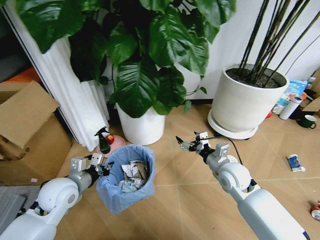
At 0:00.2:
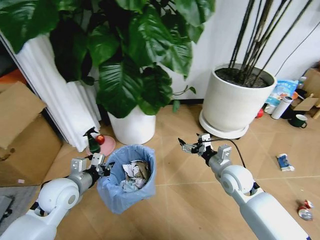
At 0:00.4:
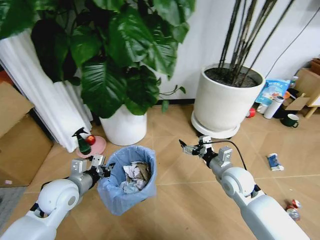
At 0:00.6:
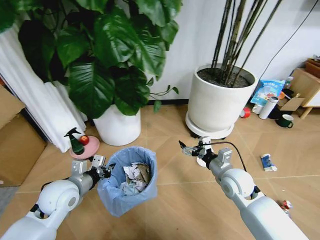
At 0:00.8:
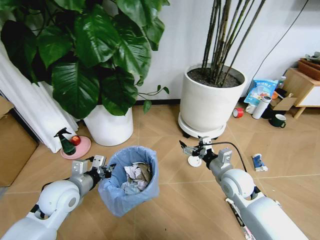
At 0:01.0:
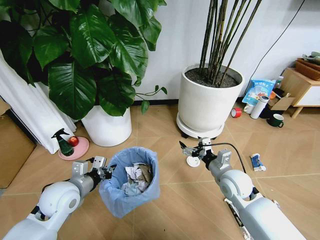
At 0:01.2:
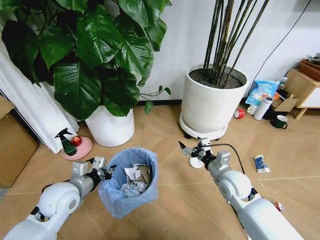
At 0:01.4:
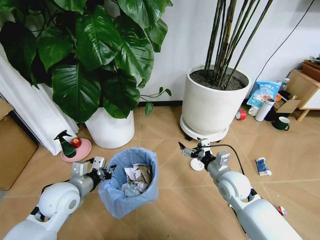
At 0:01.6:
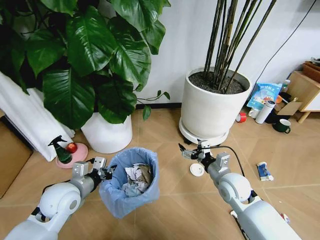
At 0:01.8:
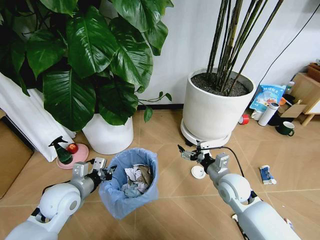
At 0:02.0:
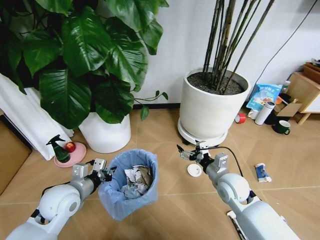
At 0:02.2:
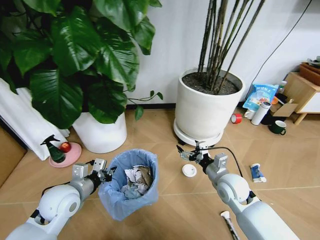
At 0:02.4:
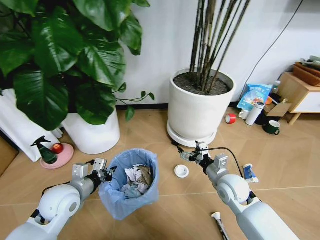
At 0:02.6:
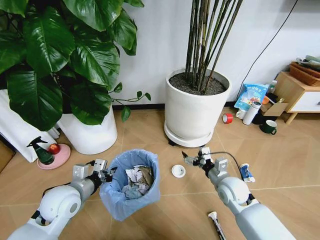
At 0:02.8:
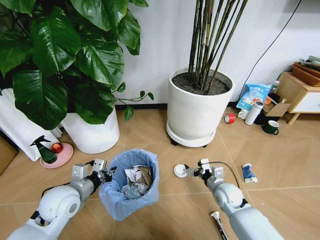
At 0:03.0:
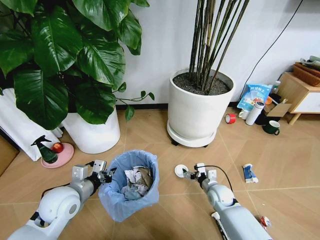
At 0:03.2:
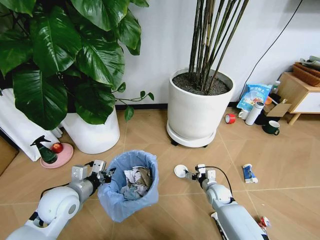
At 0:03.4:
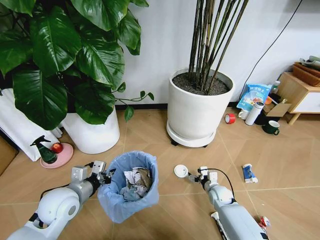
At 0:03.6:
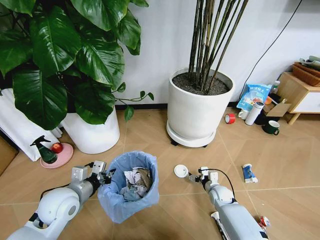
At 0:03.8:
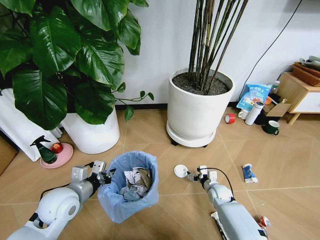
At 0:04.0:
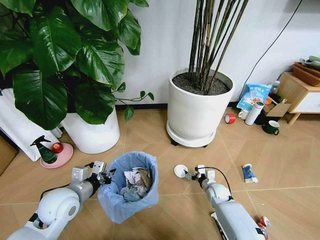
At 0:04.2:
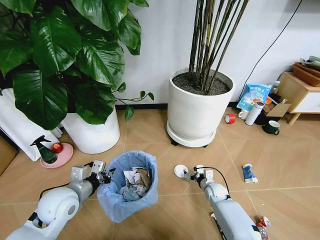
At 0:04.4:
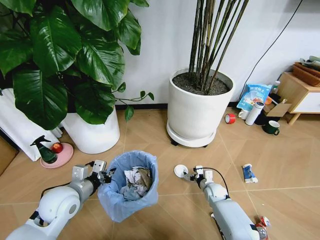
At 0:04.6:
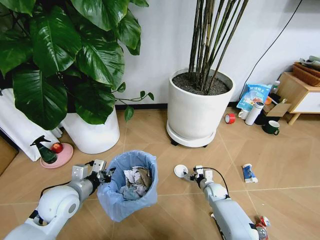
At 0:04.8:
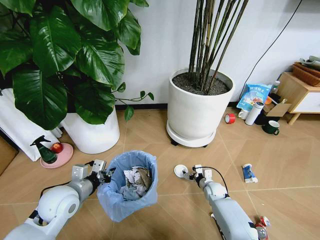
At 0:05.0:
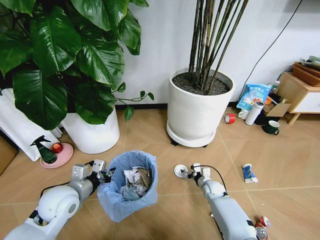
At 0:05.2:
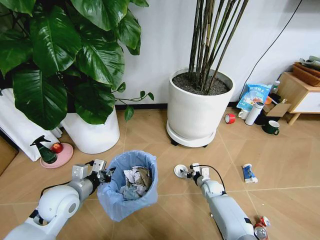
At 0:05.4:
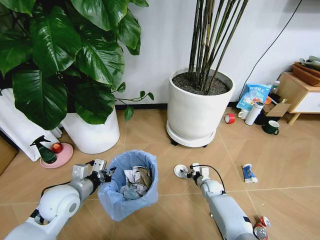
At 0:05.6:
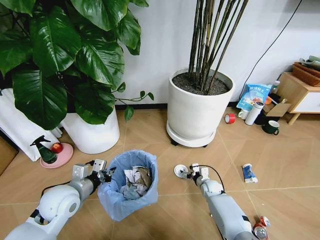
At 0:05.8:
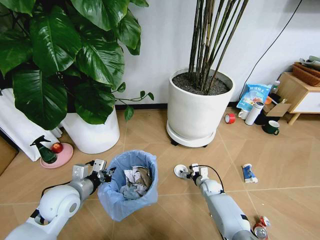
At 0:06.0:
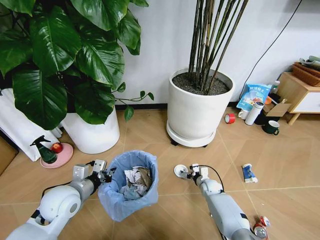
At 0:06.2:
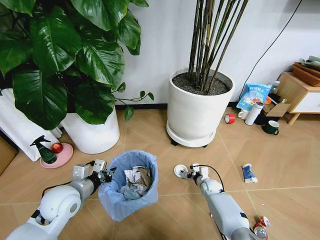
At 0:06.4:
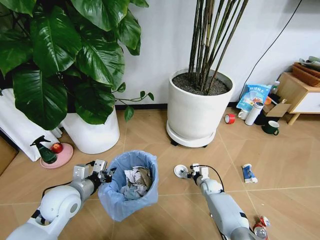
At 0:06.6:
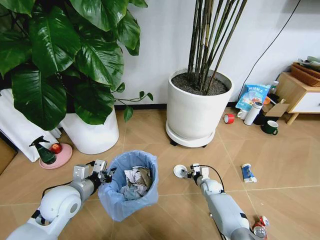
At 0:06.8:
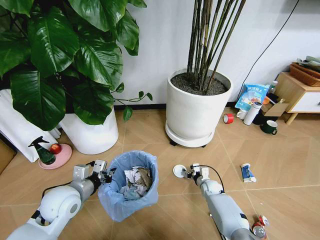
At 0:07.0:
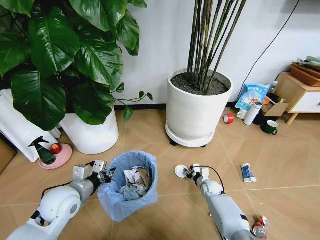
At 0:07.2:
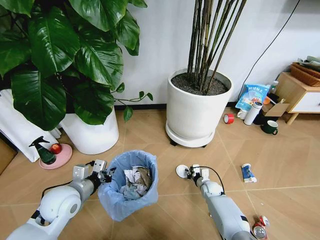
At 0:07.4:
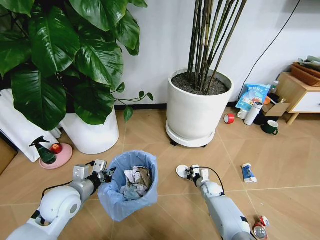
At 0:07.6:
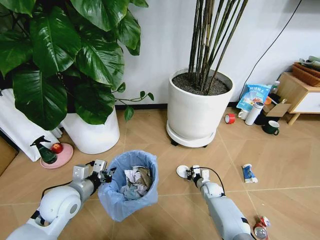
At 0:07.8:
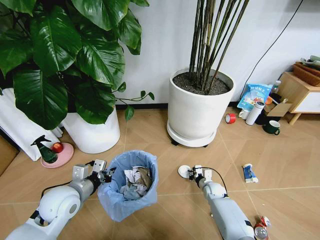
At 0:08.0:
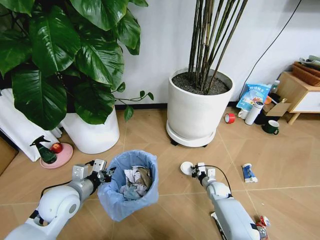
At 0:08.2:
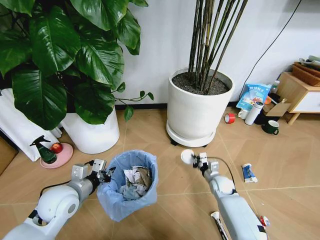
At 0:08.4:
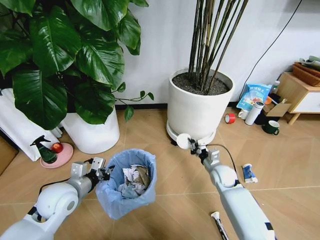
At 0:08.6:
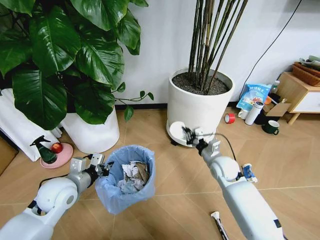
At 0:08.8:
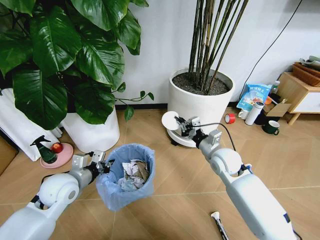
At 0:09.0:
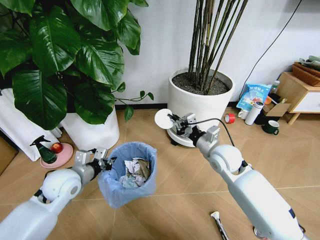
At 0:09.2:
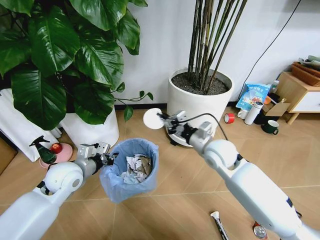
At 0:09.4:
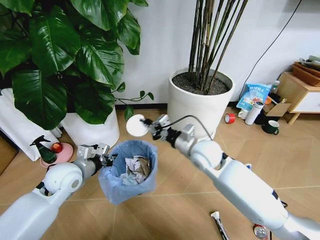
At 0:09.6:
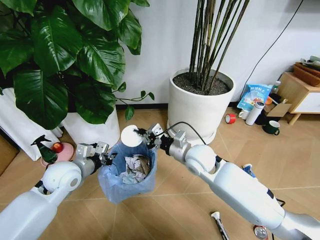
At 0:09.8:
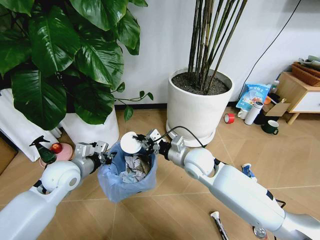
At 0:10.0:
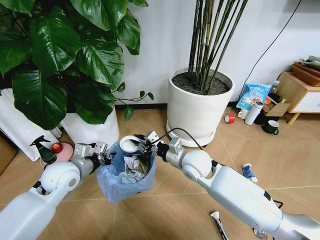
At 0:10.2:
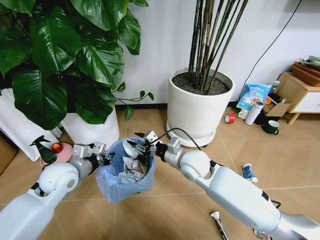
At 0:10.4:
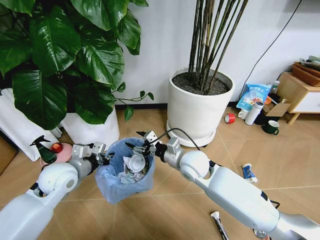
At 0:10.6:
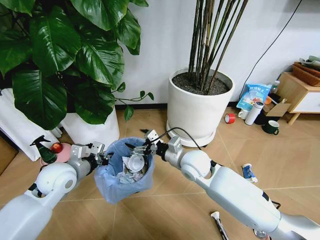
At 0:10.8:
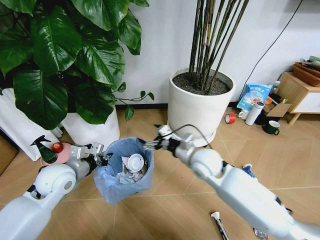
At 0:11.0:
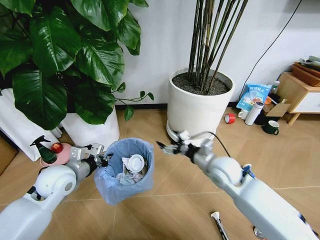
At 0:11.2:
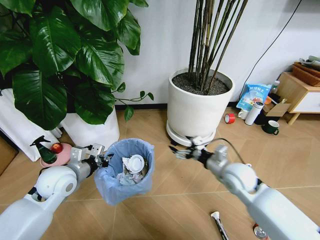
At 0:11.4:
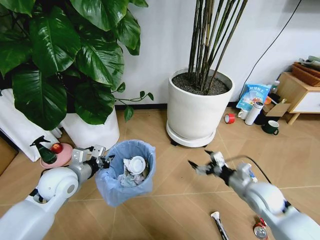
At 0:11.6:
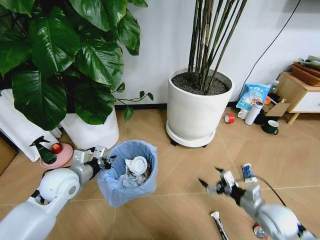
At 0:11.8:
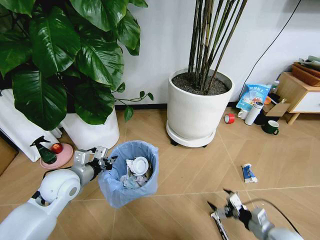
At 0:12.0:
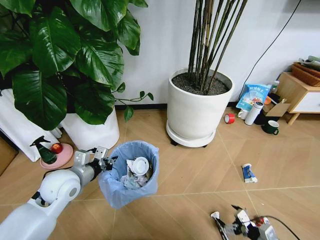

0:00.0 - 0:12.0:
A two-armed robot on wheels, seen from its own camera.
Task of the whole recording: Pick up the trash bin and place the garbage on the floor into it.
0:01.6 - 0:03.0: The right gripper is displaced downward by roughly 15 cm.
0:03.0 - 0:04.4: The right gripper moves downward, about 5 cm.
0:04.4 - 0:06.0: The grippers stay close to where they were, moving slightly.
0:06.0 - 0:07.6: The right gripper closes up.
0:07.6 - 0:09.0: The left gripper heads forward, covering some 5 cm. Meanwhile the right gripper shifts approximately 30 cm upward.
0:09.0 - 0:10.4: The right gripper is displaced to the left by approximately 10 cm, and opens its fingers.
0:10.4 - 0:12.0: The right gripper moves to the right, backward and downward, some 40 cm.

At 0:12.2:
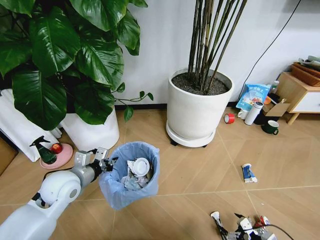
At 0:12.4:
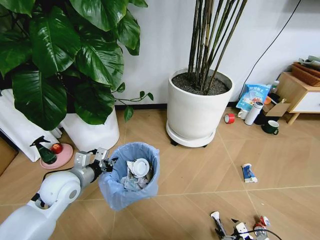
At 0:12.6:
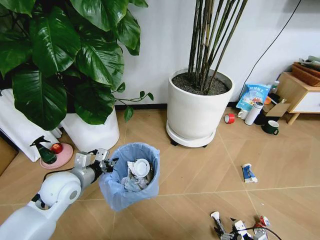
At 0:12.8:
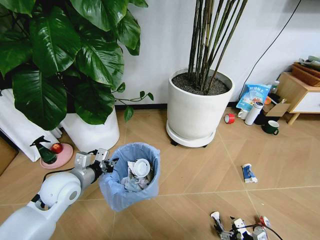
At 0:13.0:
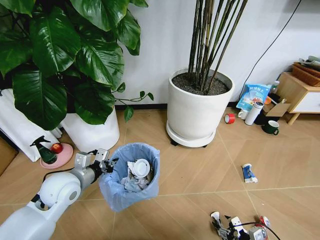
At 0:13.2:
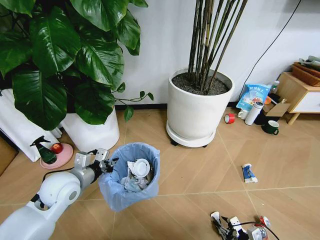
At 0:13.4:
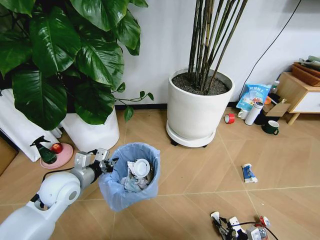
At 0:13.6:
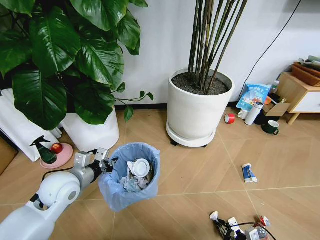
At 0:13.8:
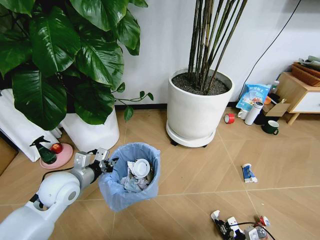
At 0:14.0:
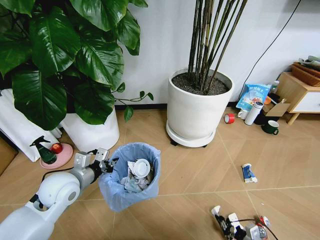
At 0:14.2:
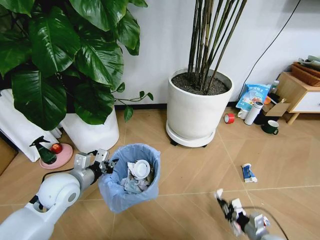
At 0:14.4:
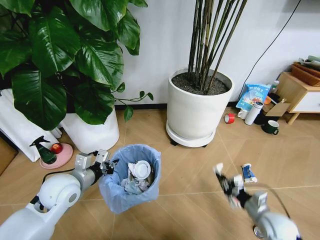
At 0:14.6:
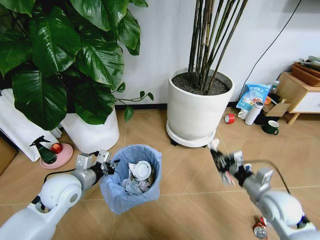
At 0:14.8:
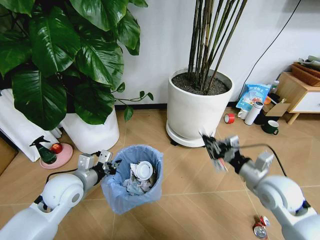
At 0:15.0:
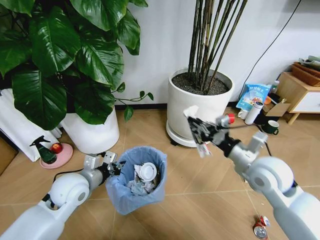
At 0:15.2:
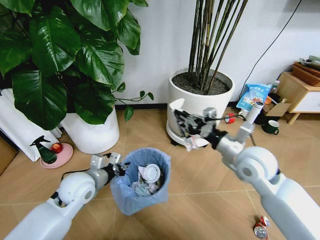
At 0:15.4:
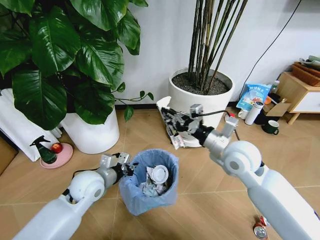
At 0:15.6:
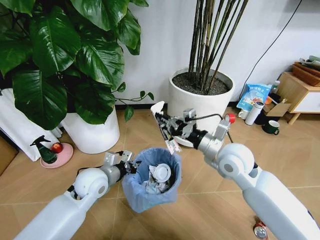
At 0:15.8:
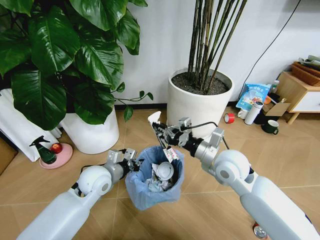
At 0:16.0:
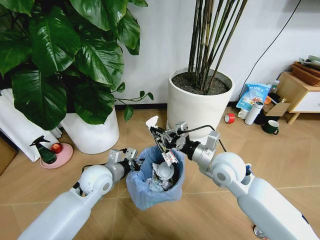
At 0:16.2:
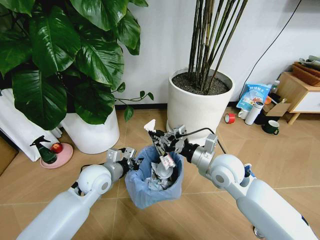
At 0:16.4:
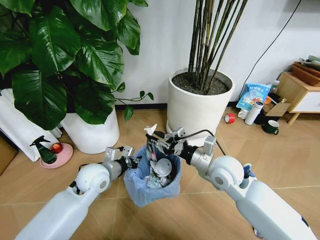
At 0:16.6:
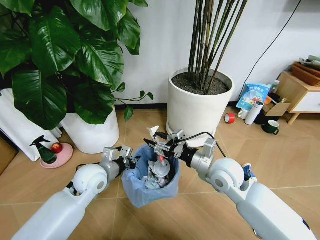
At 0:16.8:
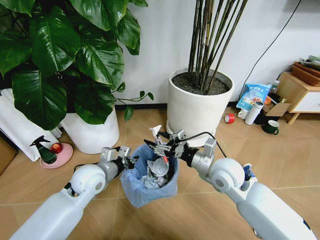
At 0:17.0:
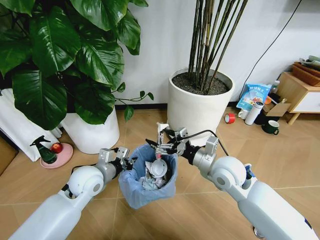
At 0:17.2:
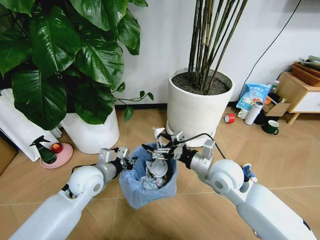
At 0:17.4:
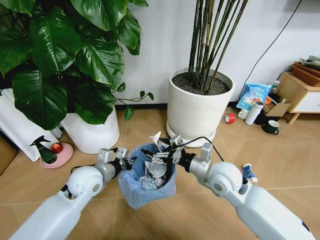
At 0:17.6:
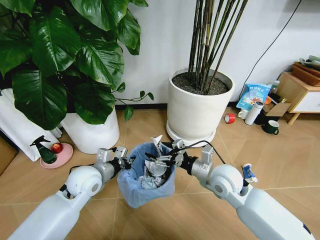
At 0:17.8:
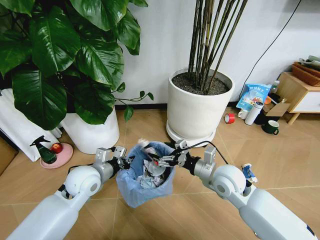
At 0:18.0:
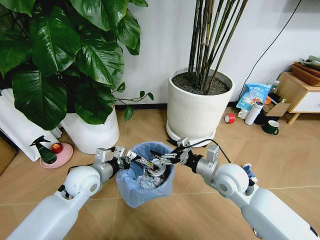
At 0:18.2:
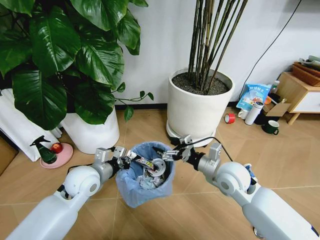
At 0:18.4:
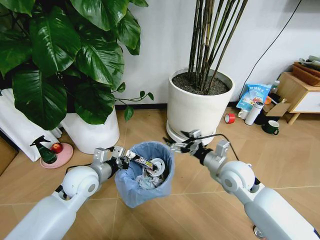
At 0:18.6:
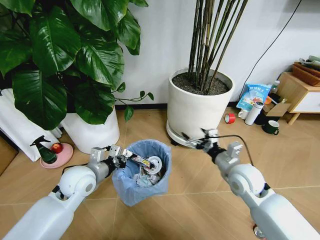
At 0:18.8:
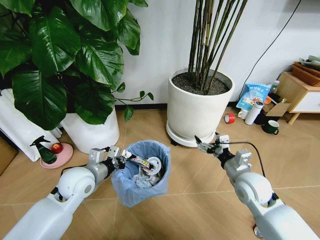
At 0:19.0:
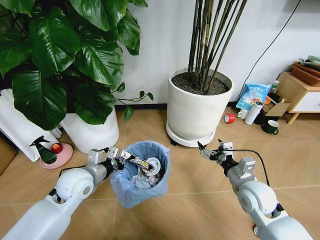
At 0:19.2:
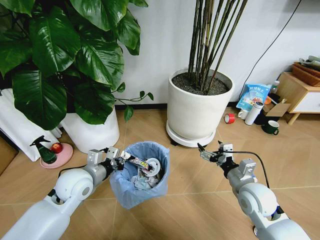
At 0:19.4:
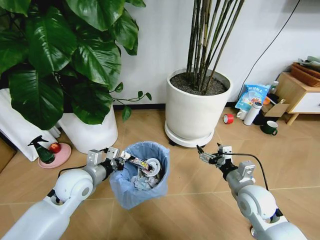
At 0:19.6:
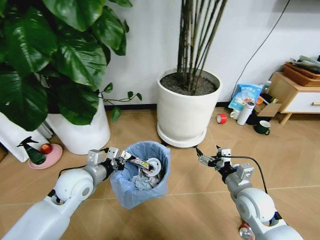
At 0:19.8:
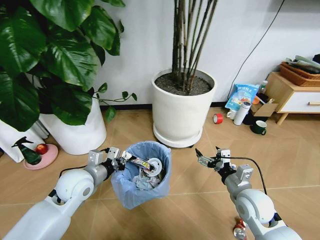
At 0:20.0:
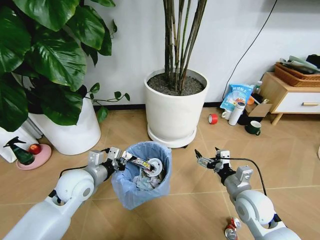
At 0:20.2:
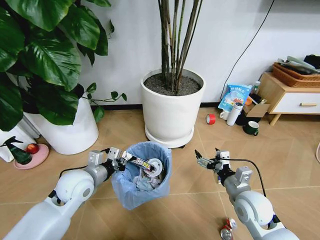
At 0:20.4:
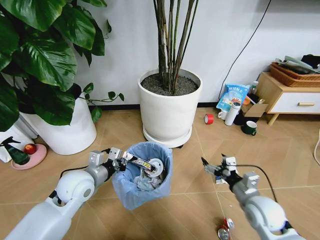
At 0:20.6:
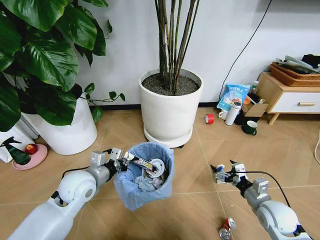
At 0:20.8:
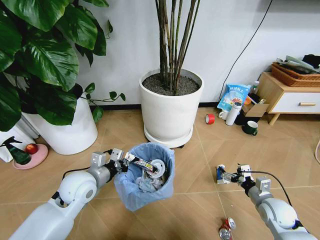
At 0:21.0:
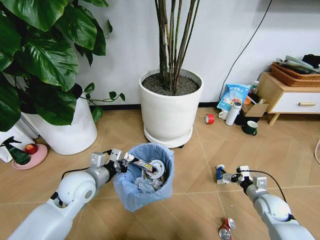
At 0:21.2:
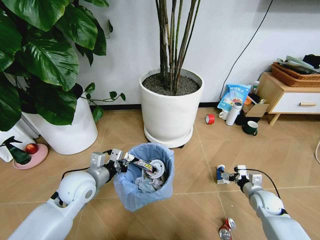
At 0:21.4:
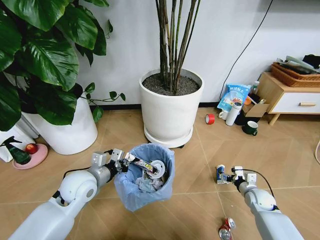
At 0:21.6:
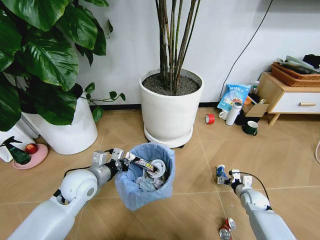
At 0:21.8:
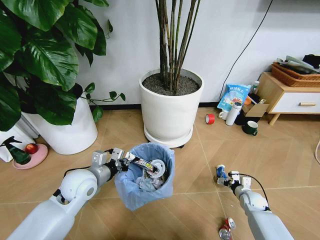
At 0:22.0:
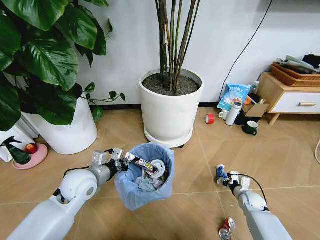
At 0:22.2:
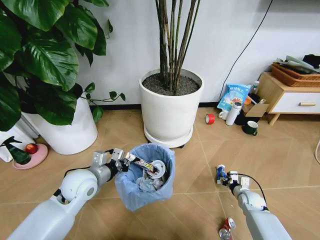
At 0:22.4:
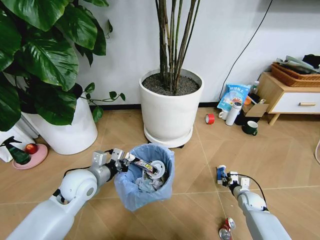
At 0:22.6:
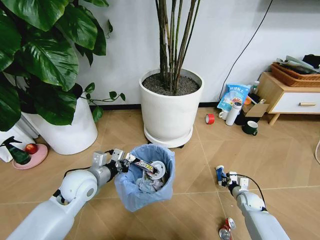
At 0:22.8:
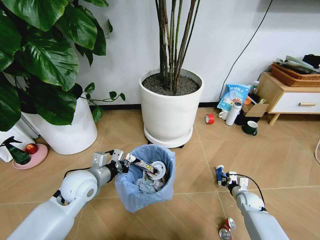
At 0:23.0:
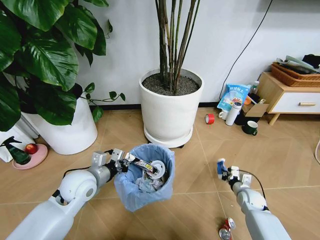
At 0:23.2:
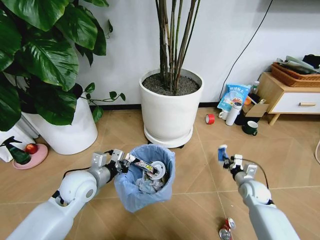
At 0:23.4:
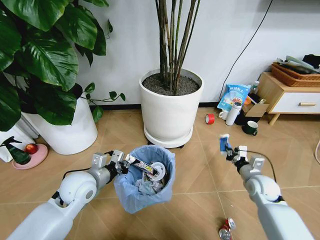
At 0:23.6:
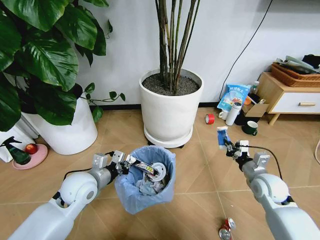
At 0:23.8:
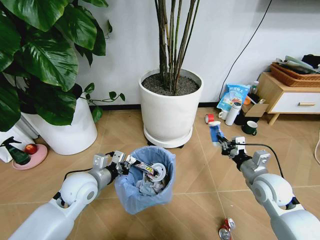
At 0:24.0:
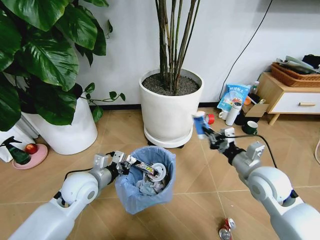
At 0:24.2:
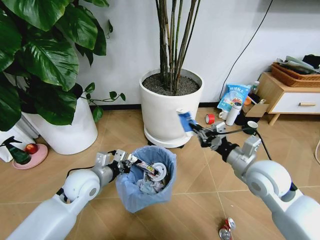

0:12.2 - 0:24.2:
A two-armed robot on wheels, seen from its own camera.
Task of the whole recording: Pick up the trash bin and place the garbage on the floor into it.
0:12.2 - 0:13.8: The right gripper is displaced downward by approximately 5 cm, and closes up.
0:13.8 - 0:15.2: The right gripper travels upward and forward by approximately 40 cm.
0:15.2 - 0:16.6: The right gripper travels to the left and downward by approximately 10 cm, and opens up.
0:16.6 - 0:18.2: The right gripper opens.
0:18.2 - 0:19.8: The right gripper shifts roughly 10 cm backward, to the right and downward.
0:19.8 - 0:21.2: The right gripper heads to the right and downward, covering approximately 20 cm.
0:21.2 - 0:22.6: The right gripper heads downward, covering approximately 10 cm, and closes its fingers.
0:22.6 - 0:24.2: The right gripper goes roughly 35 cm upward.
